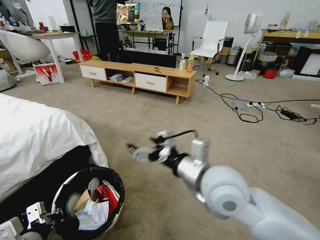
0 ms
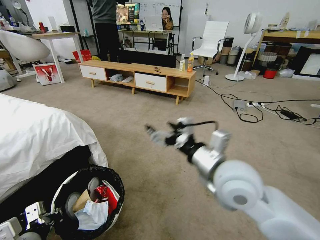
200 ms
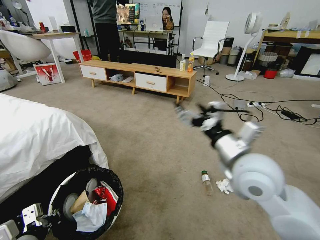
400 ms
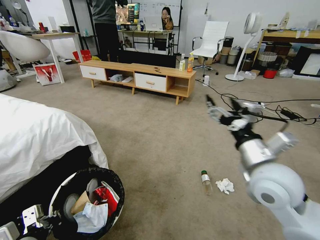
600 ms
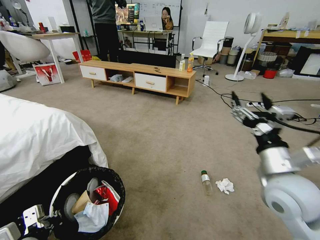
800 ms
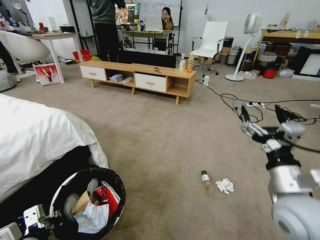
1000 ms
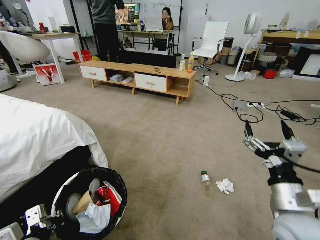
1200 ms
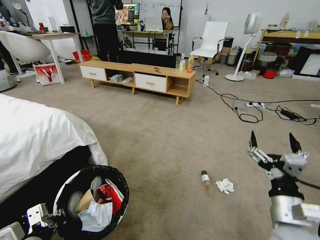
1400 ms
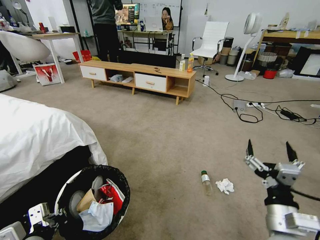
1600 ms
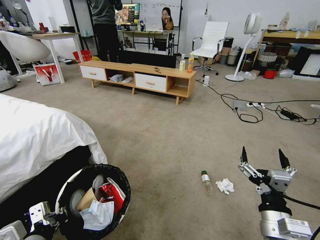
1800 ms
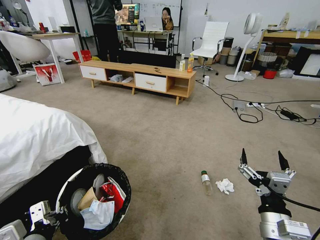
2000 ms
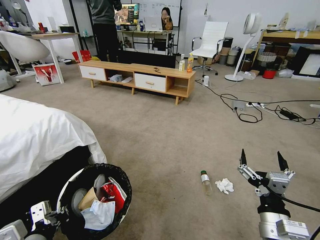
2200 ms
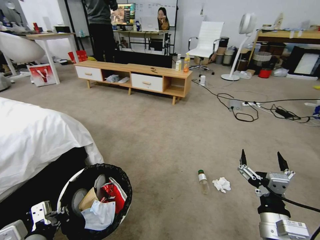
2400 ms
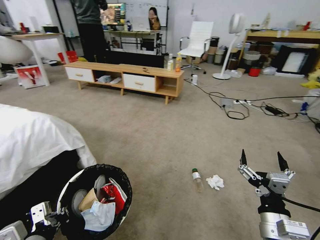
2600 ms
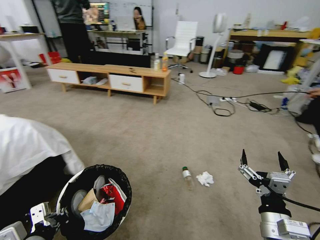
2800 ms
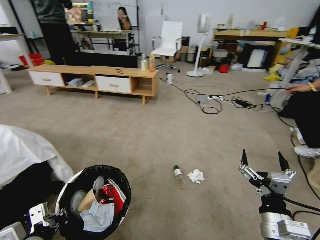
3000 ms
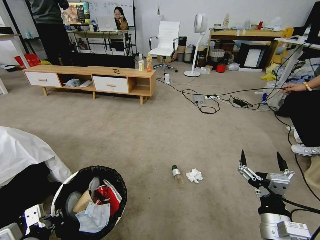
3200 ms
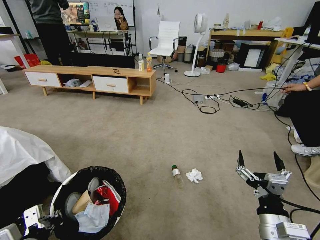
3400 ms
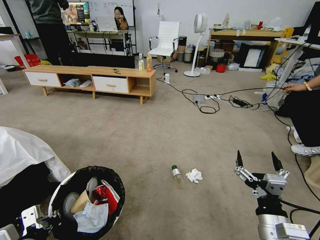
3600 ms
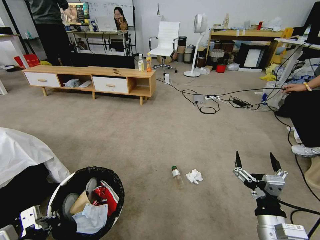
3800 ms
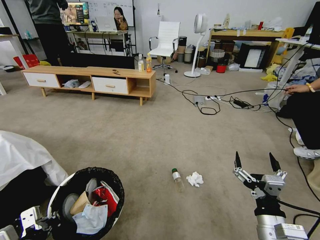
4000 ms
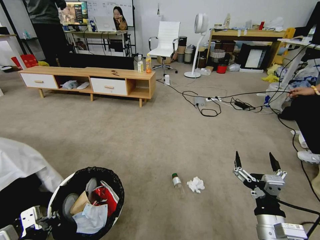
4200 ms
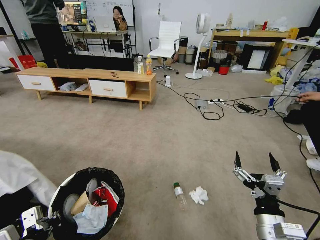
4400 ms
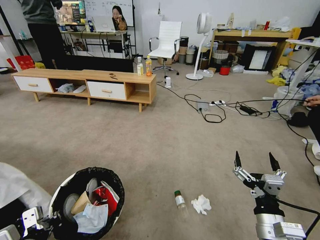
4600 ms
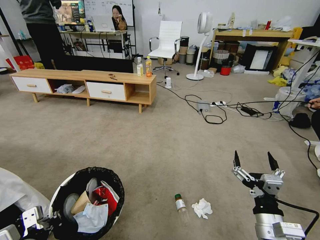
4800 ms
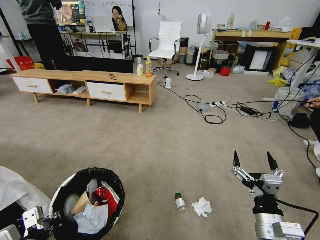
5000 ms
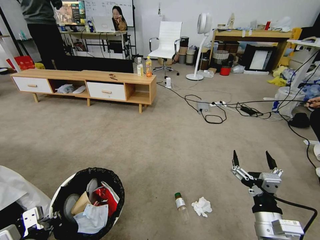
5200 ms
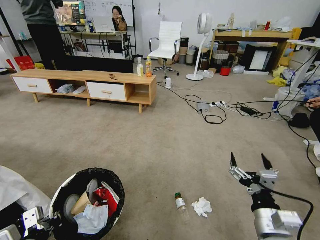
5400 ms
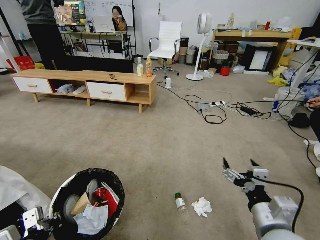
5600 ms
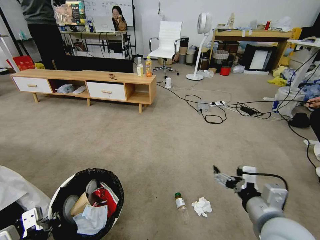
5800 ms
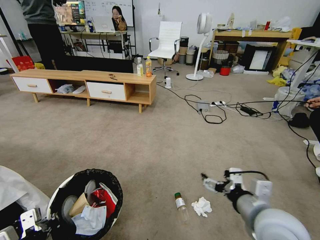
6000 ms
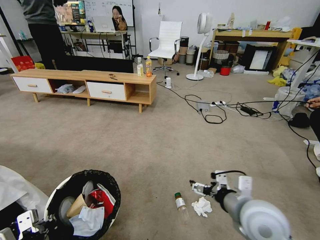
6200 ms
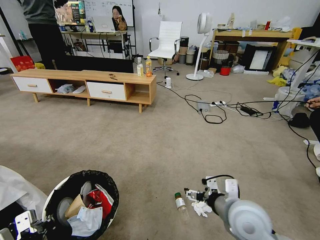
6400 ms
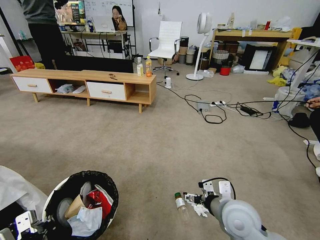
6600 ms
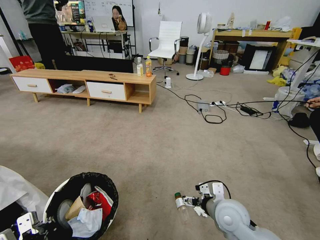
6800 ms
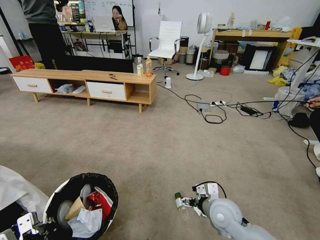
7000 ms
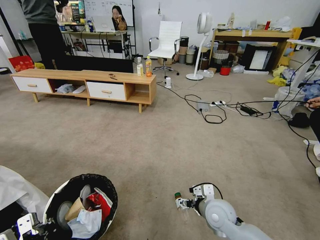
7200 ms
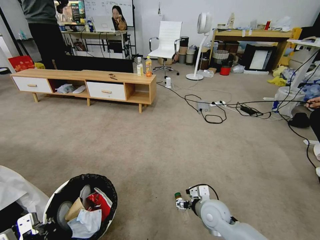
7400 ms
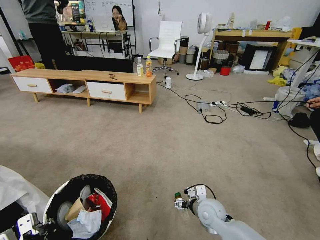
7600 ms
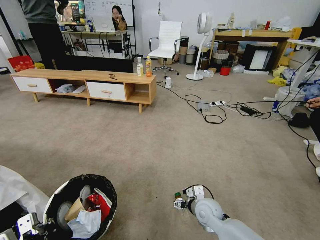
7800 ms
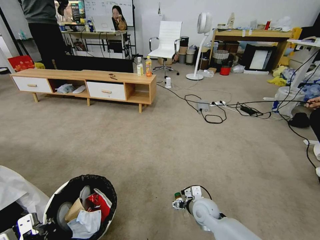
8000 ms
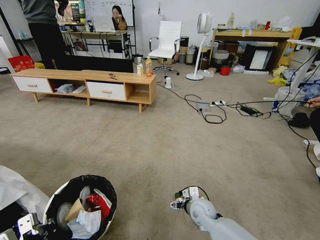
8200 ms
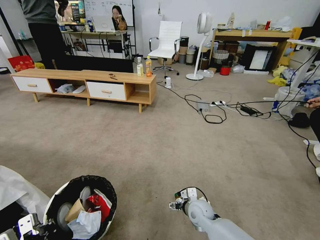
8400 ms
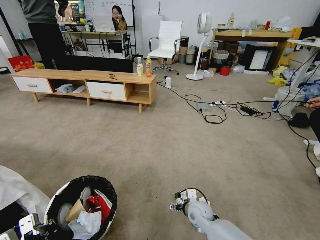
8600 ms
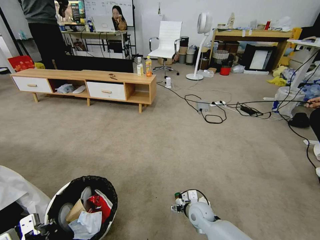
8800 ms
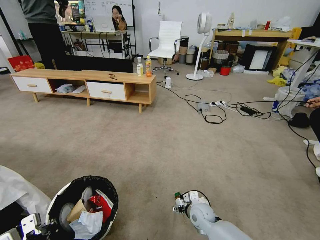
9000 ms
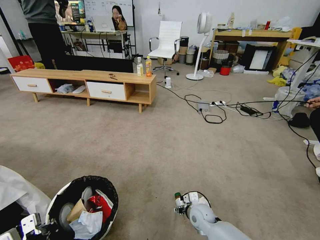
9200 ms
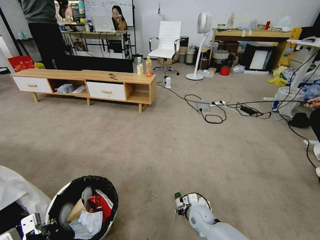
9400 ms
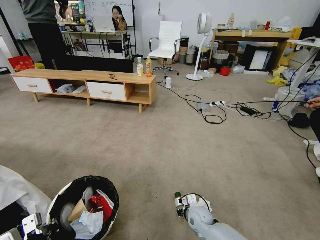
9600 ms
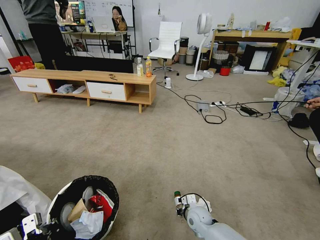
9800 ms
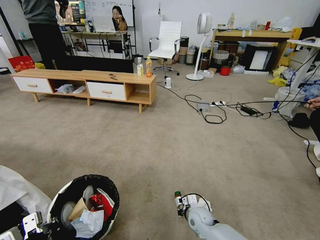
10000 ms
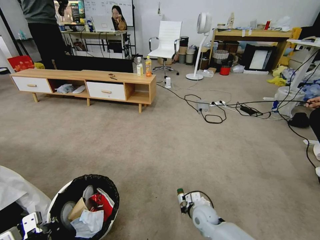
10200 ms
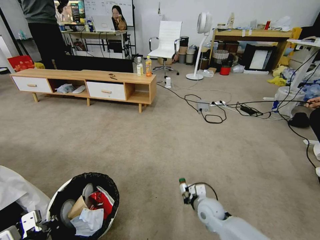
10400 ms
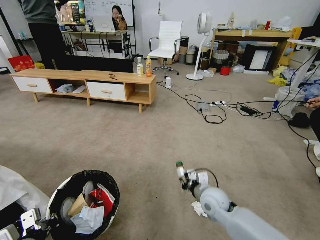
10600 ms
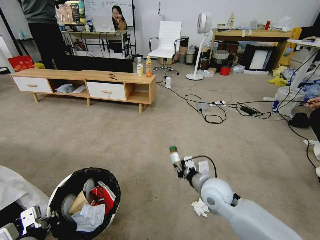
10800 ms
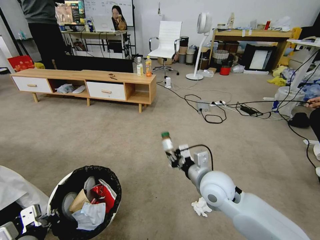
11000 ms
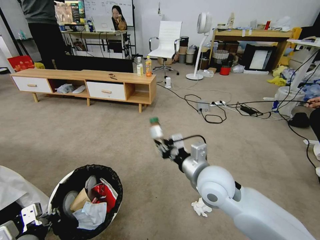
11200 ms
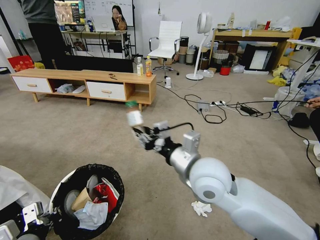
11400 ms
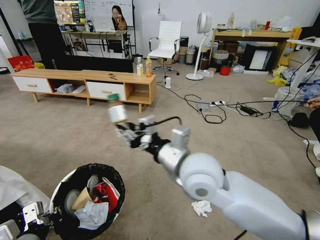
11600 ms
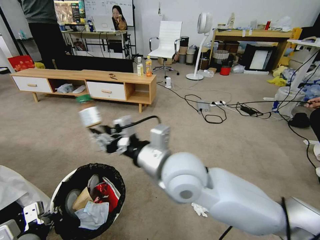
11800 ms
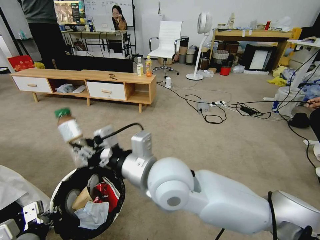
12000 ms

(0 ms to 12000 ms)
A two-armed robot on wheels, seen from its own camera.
Task of the whole recording: Pick up the trash bin and place the garbage on the floor into it.
0 ms - 1600 ms: The right gripper is displaced to the right, downward and backward by approximately 20 cm.
4400 ms - 6000 ms: The right gripper shifts approximately 10 cm upward.
6000 ms - 7600 ms: The right gripper heads downward and forward, covering approximately 25 cm.
7600 ms - 9000 ms: The right gripper travels downward by about 10 cm.
9000 ms - 10400 ms: The right gripper closes.
10400 ms - 12000 ms: The right gripper moves upward and to the left, approximately 40 cm.

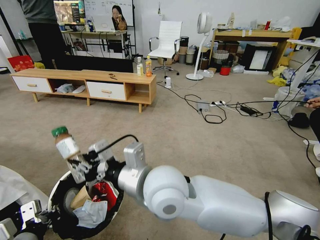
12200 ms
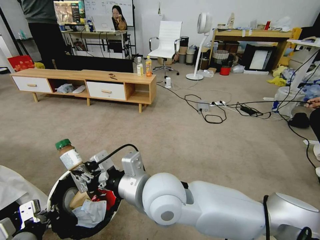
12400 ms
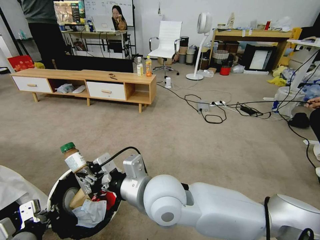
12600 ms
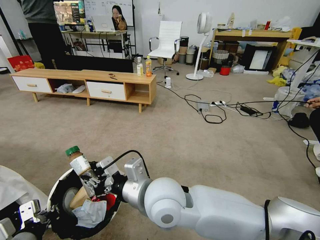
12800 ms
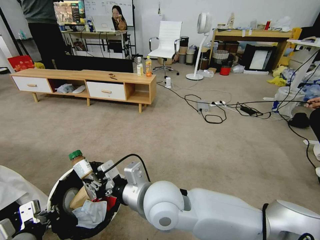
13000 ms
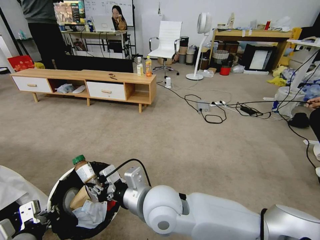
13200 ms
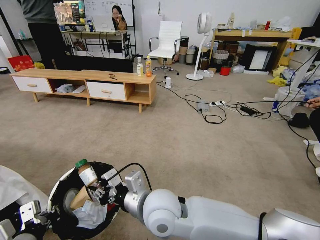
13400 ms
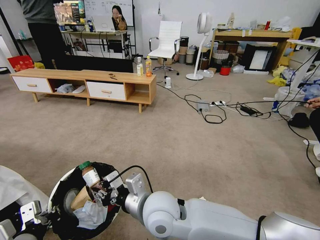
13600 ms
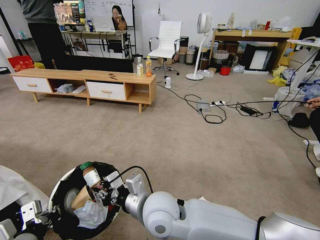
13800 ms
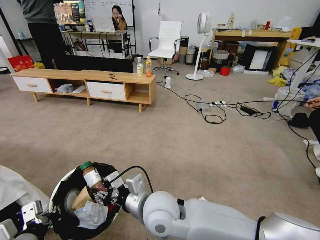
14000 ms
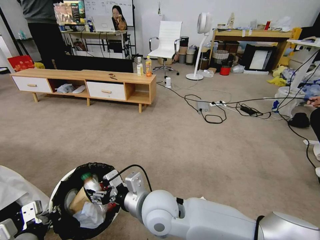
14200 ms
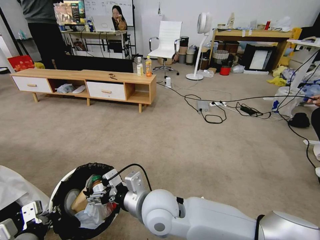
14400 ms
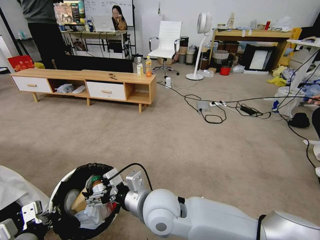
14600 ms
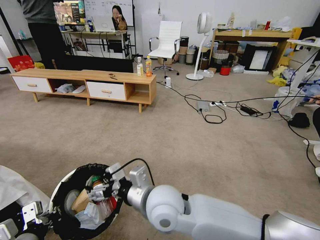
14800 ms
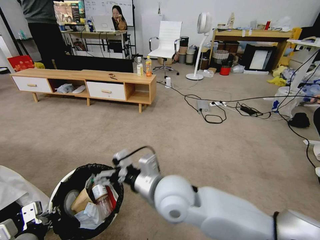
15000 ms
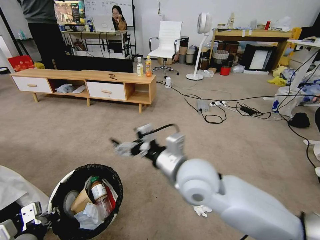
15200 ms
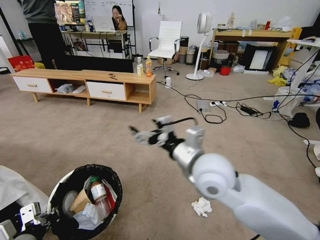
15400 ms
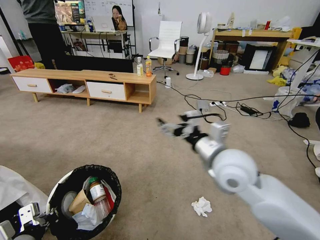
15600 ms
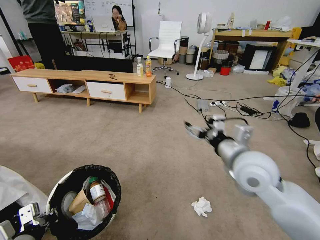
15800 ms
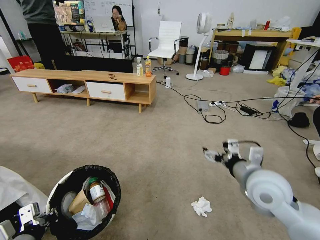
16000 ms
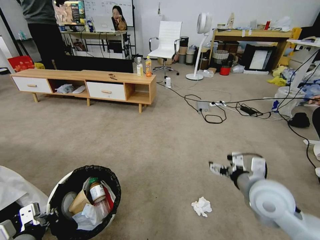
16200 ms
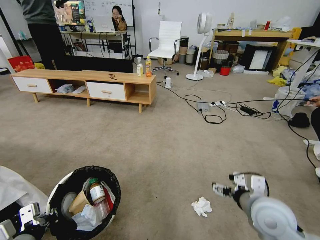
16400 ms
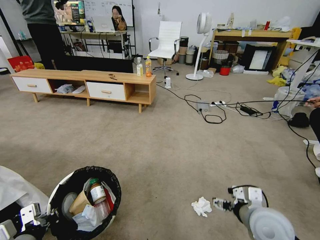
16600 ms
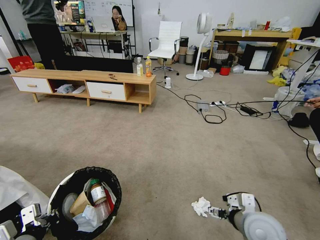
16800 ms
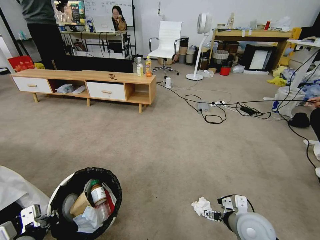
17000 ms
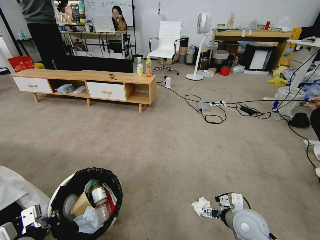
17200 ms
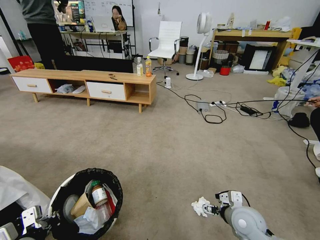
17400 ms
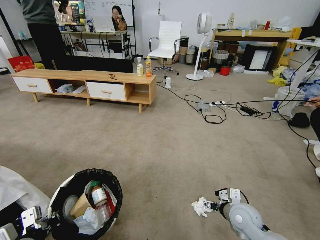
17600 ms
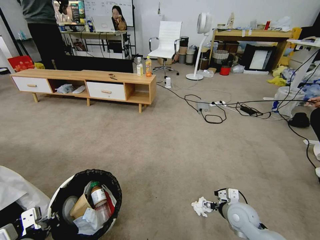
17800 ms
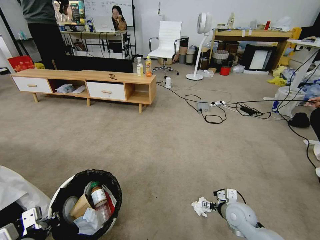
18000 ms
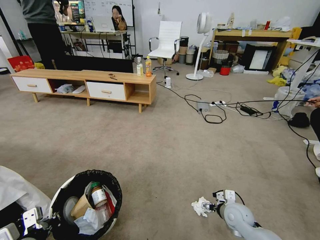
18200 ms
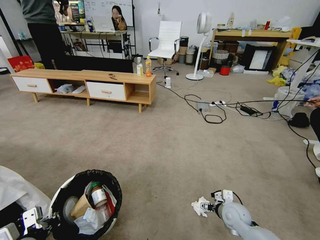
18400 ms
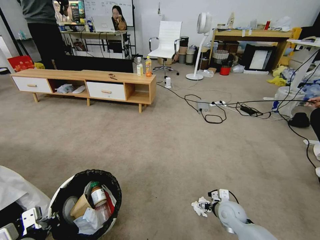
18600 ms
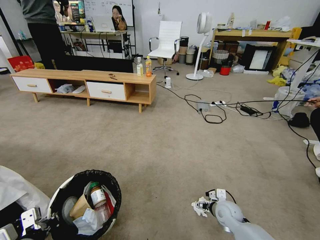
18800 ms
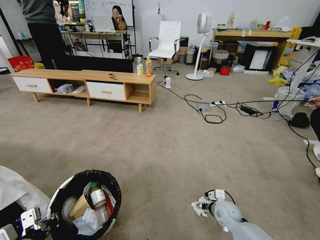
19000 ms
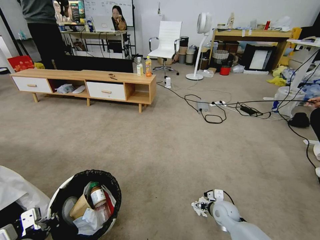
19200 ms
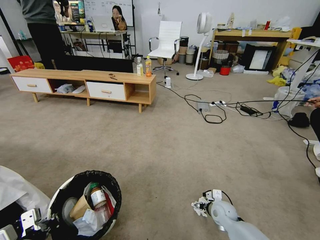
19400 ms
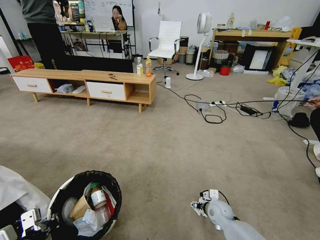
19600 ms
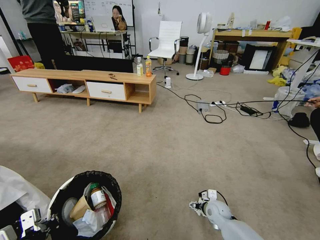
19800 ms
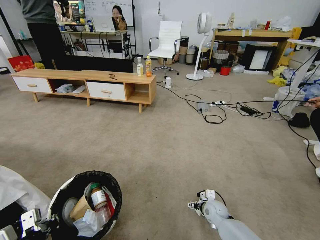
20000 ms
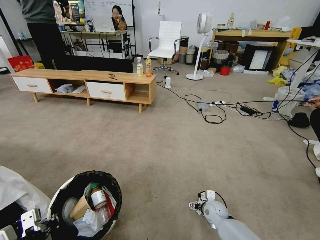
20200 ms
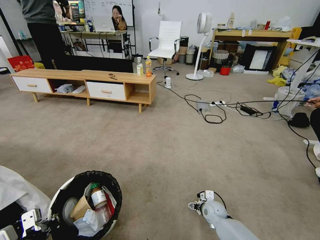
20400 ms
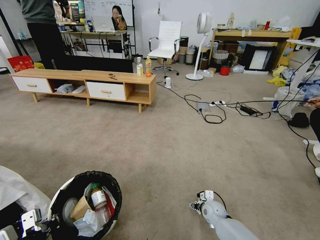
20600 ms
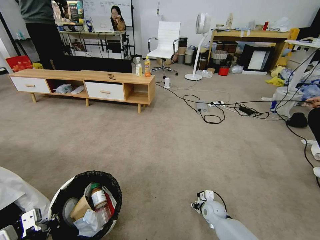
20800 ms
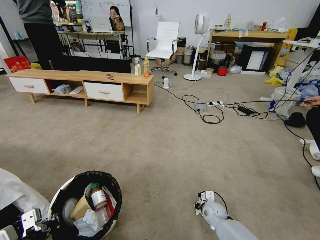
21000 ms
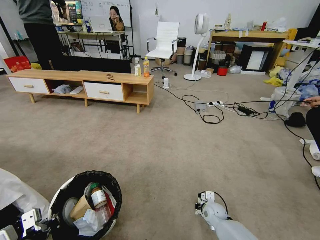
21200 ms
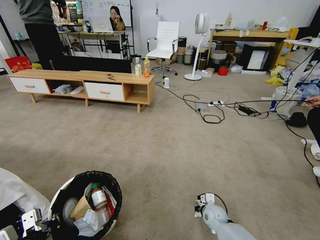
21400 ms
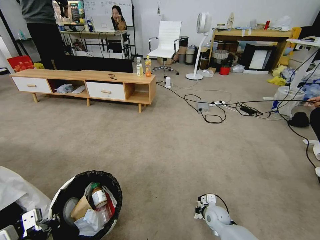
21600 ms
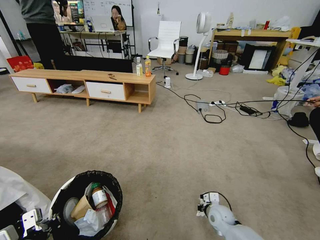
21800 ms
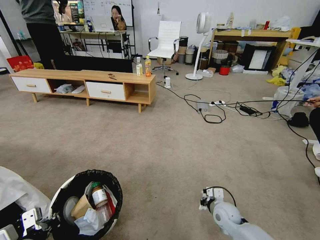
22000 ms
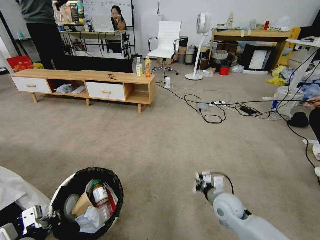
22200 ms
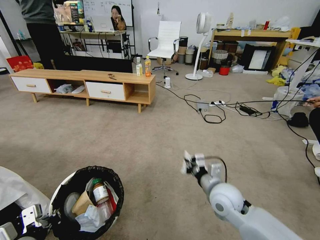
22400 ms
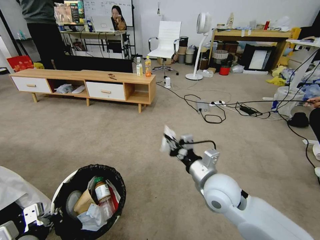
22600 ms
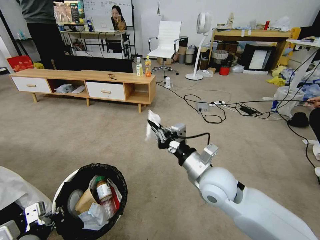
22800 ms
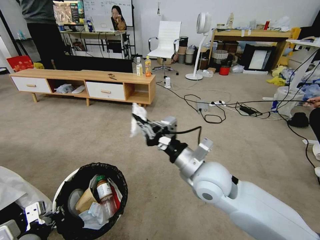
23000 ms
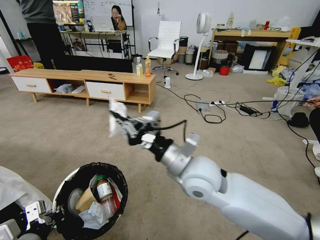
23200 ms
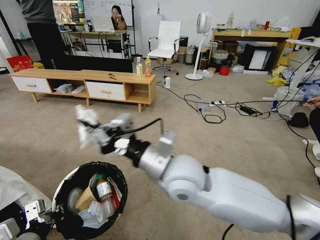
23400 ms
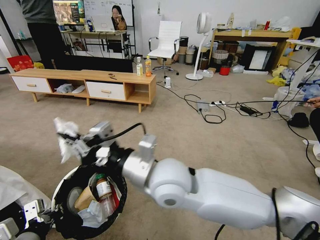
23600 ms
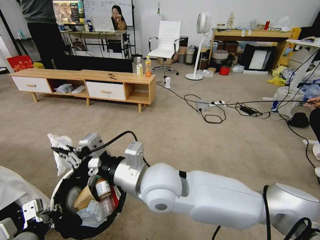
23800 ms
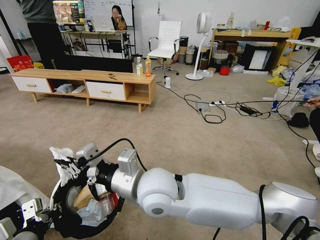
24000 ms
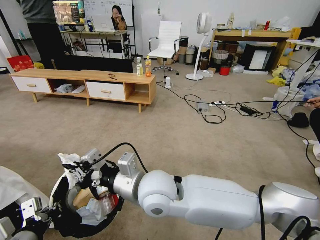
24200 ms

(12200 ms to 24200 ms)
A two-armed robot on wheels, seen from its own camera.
Task of the whole recording: Pick up the trash bin and place the garbage on the floor into it.
12200 ms - 13800 ms: The right gripper heads downward, covering about 10 cm.
13800 ms - 15200 ms: The right gripper shifts approximately 10 cm upward and to the right, and opens its fingers.
15200 ms - 16600 ms: The right gripper moves to the right and downward, some 25 cm.
16600 ms - 18200 ms: The right gripper shifts approximately 15 cm downward and forward.
18200 ms - 19800 ms: The right gripper heads downward, covering some 5 cm.
19800 ms - 21200 ms: The right gripper closes up.
21200 ms - 22600 ms: The right gripper goes some 30 cm upward.
22600 ms - 24200 ms: The right gripper heads to the left, covering approximately 20 cm.
